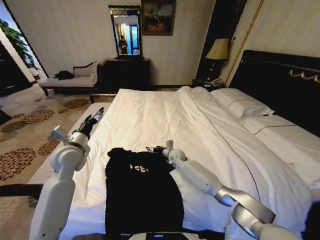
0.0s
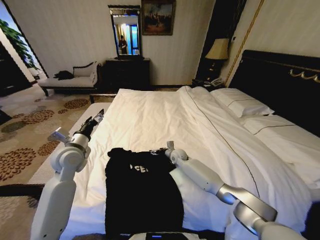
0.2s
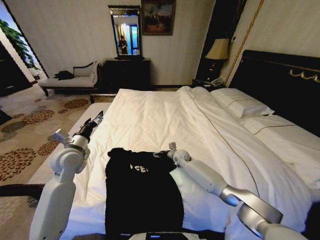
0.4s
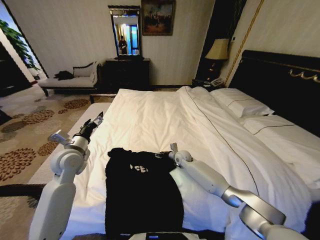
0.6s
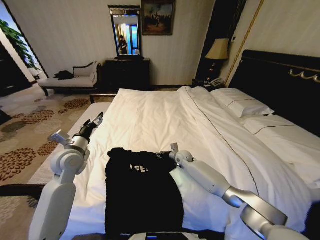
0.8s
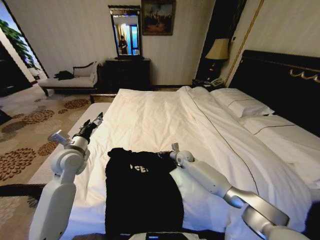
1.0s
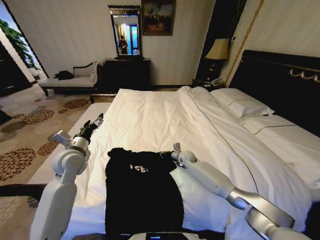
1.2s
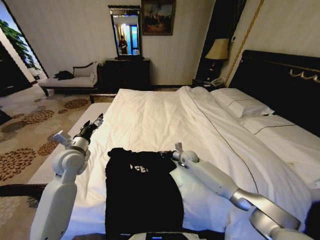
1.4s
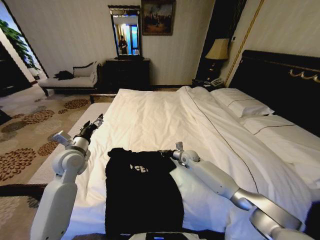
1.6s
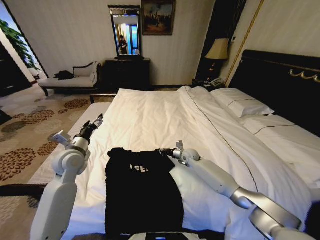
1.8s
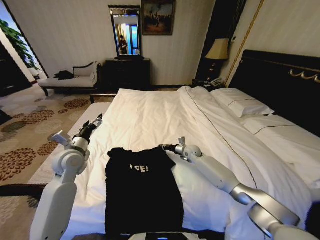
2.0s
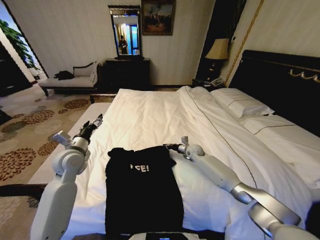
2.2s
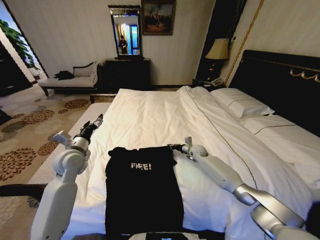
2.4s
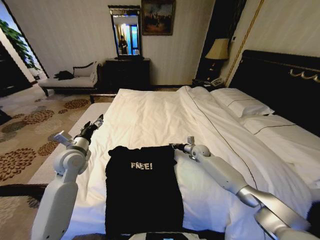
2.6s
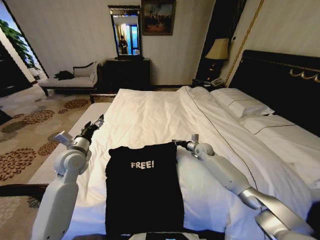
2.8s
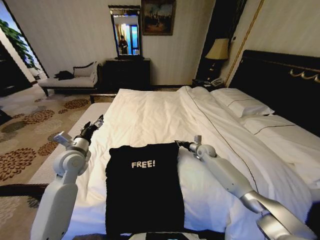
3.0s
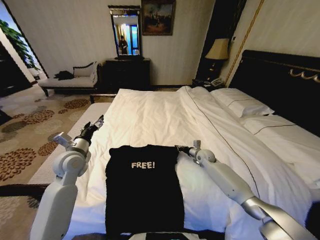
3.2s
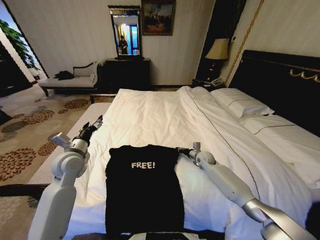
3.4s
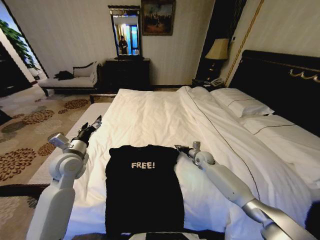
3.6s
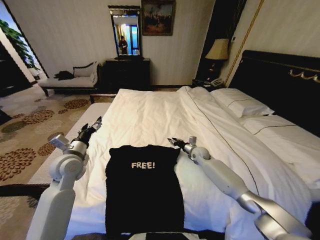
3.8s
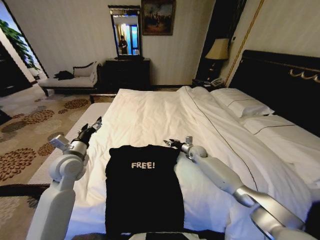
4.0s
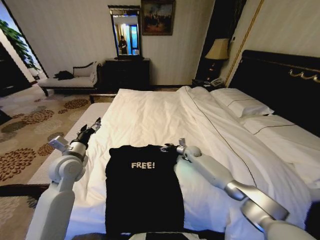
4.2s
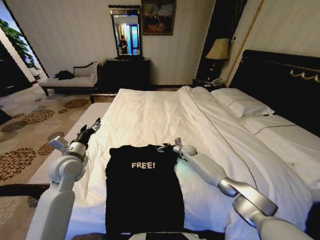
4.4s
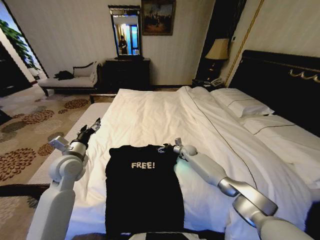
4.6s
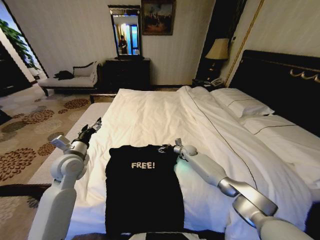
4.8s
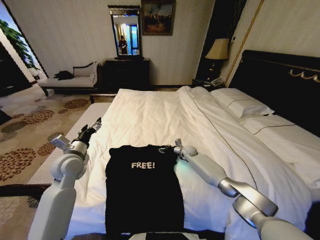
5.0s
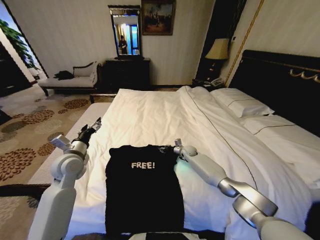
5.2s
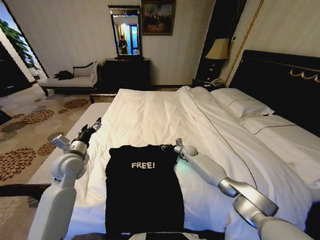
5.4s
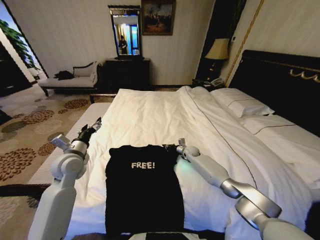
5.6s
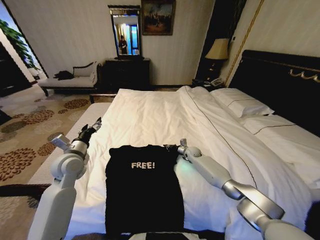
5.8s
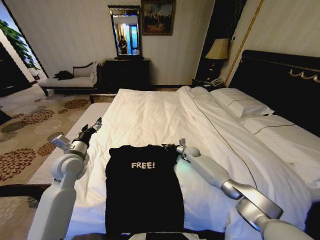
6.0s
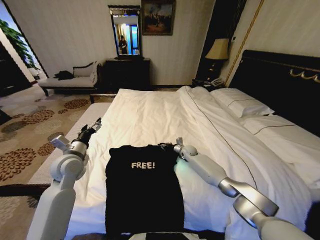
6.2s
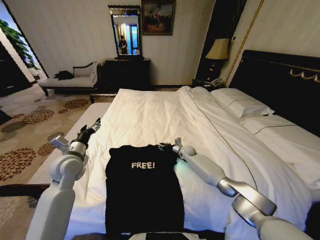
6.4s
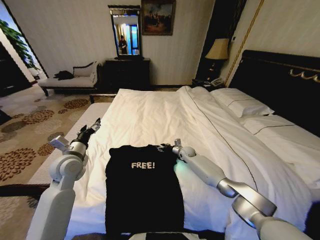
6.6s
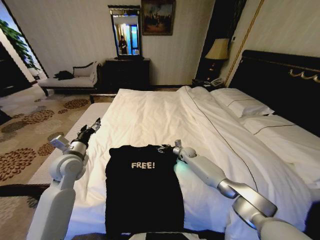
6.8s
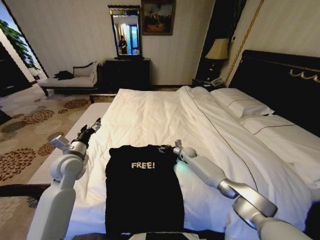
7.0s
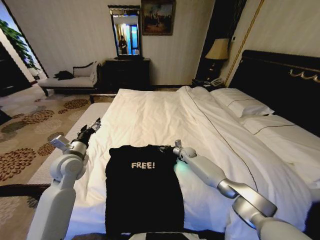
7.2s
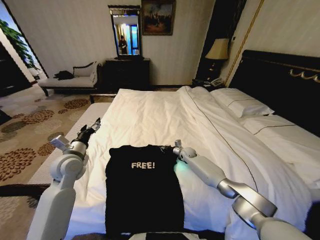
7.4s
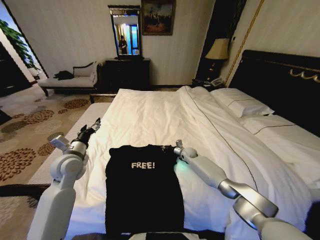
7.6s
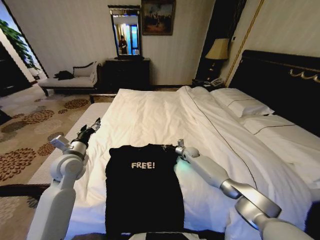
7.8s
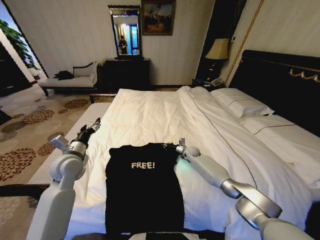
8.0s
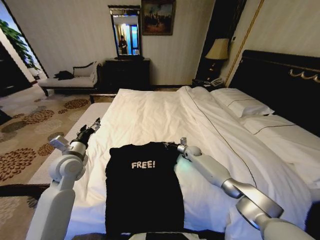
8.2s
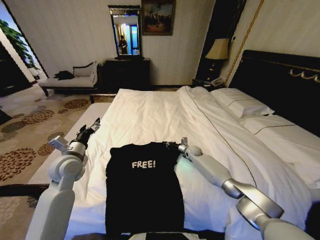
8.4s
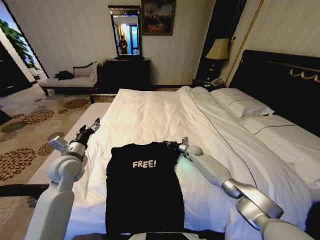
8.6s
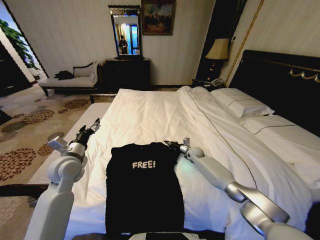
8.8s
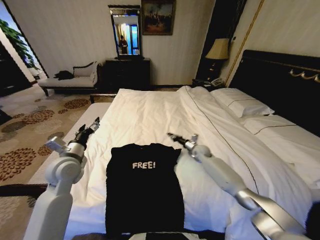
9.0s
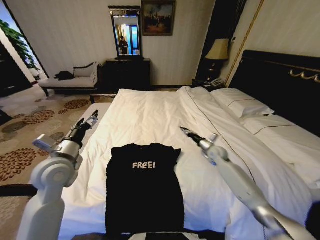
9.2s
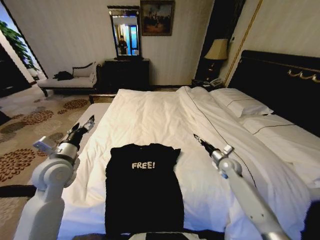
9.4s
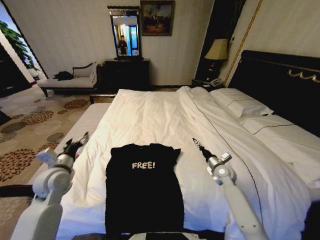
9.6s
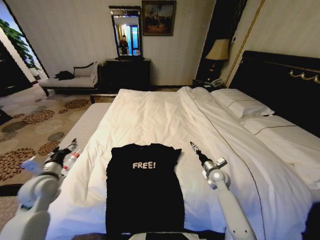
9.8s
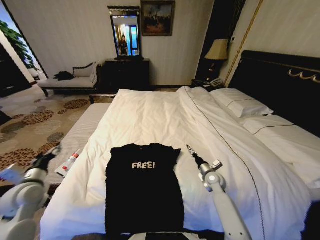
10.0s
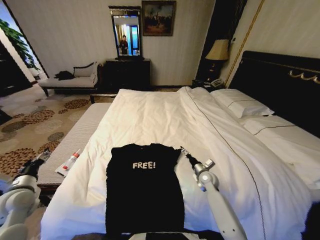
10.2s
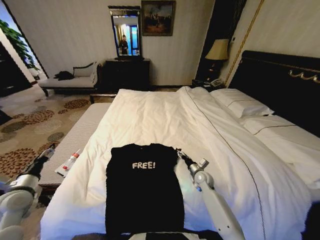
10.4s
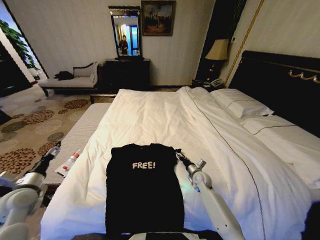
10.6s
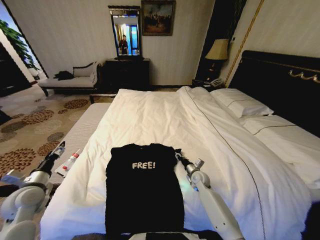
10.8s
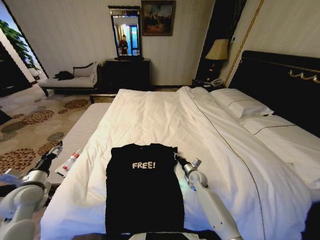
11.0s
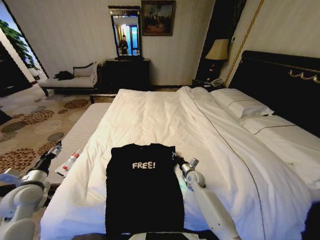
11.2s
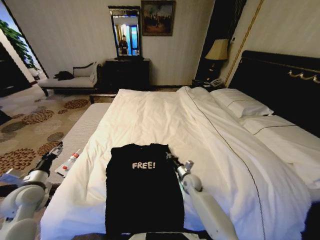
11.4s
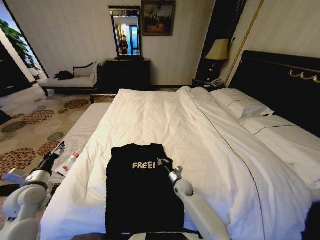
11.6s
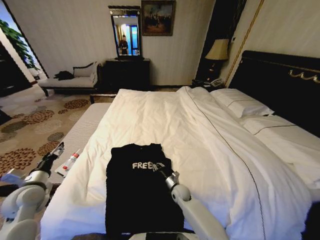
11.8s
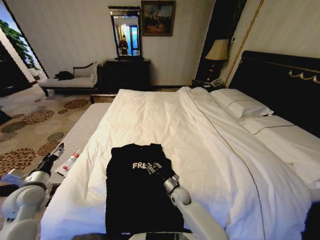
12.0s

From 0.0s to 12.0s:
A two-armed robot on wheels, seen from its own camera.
Task of the whole recording: Fold the clothes on the bed.
From 0.0s to 1.6s: The right gripper moves to the right, approximately 5 cm, and closes.
From 1.6s to 3.0s: The right gripper is displaced to the right by some 10 cm.
From 3.0s to 4.4s: The right gripper moves to the left, some 10 cm, and opens up.
From 4.4s to 6.0s: The right gripper closes its fingers.
From 6.0s to 7.6s: The right gripper opens and closes again.
From 7.6s to 9.0s: The right gripper moves upward and to the right, about 10 cm.
From 9.0s to 10.4s: The left gripper heads to the left, backward and downward, covering some 20 cm; the right gripper shifts some 15 cm backward and downward, and opens.
From 10.4s to 12.0s: The right gripper heads to the left, backward and downward, covering approximately 15 cm, and closes.

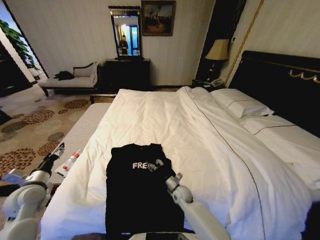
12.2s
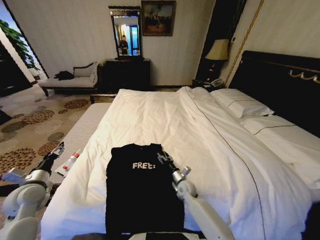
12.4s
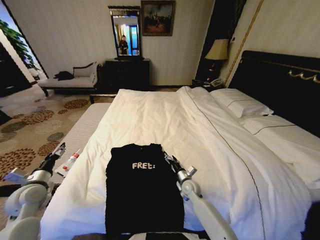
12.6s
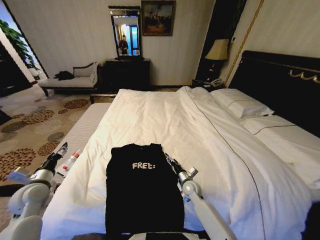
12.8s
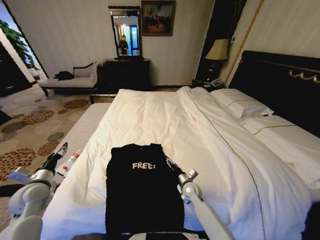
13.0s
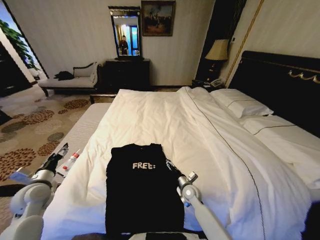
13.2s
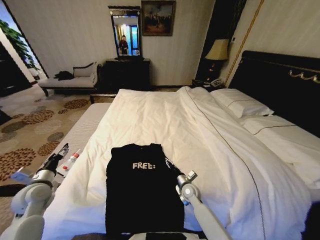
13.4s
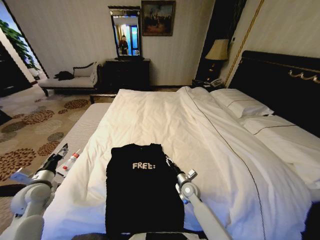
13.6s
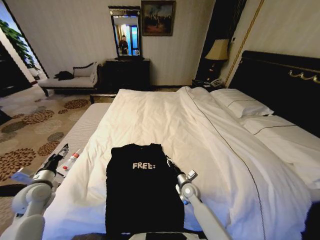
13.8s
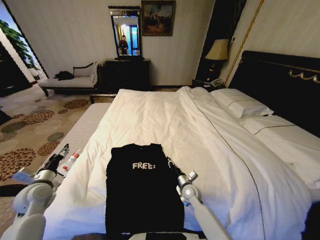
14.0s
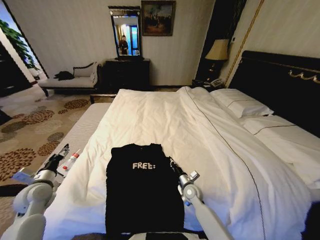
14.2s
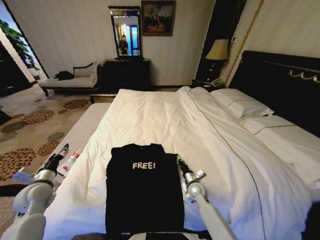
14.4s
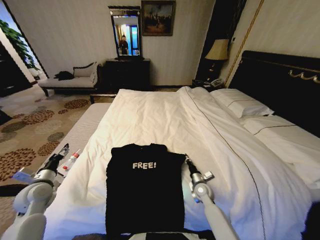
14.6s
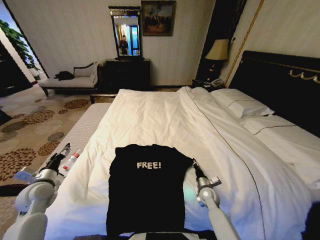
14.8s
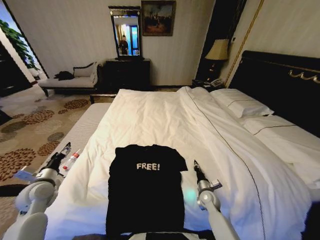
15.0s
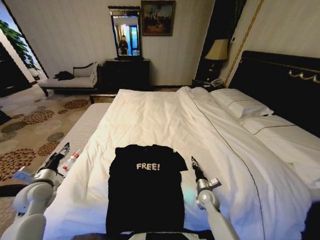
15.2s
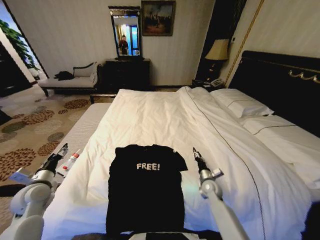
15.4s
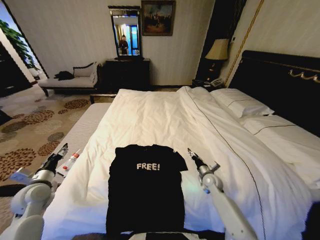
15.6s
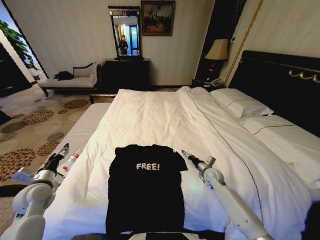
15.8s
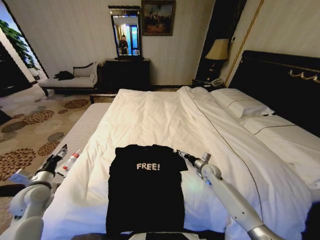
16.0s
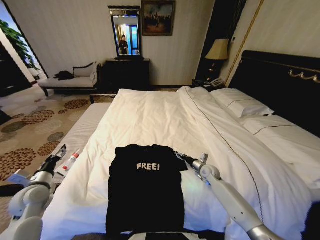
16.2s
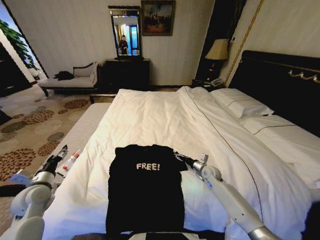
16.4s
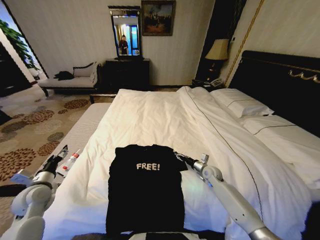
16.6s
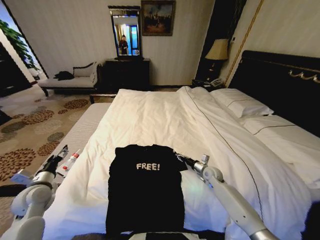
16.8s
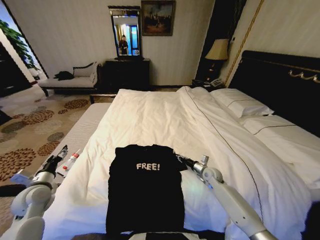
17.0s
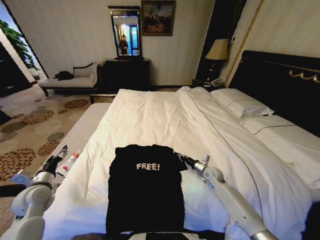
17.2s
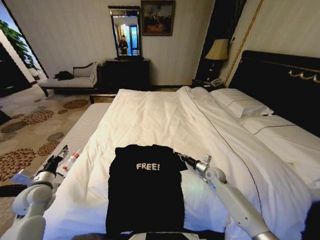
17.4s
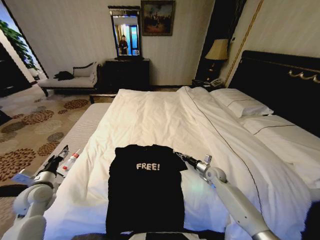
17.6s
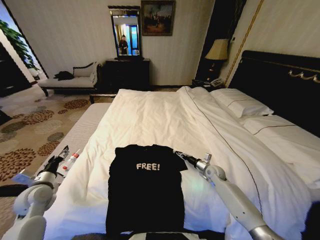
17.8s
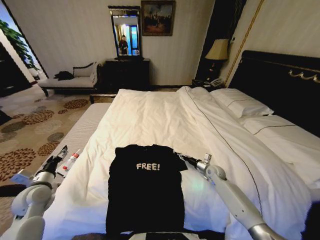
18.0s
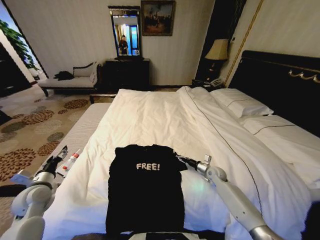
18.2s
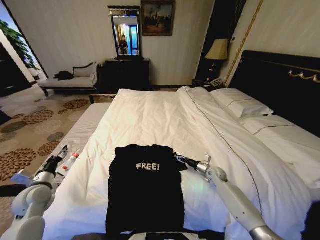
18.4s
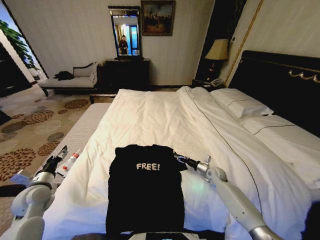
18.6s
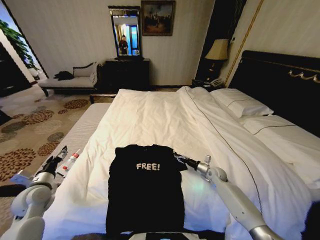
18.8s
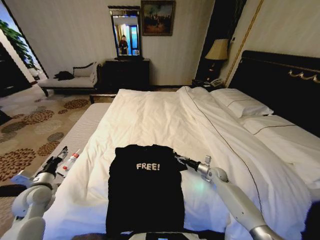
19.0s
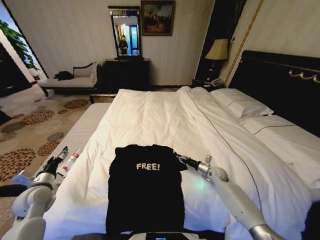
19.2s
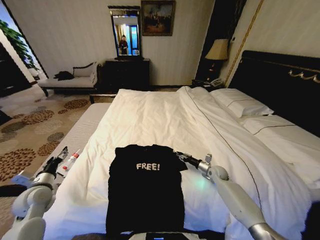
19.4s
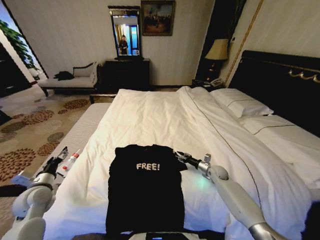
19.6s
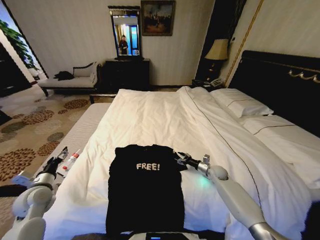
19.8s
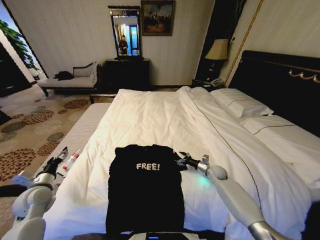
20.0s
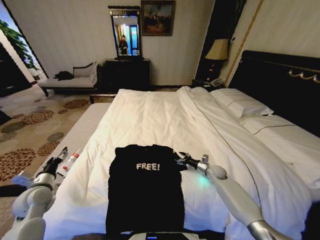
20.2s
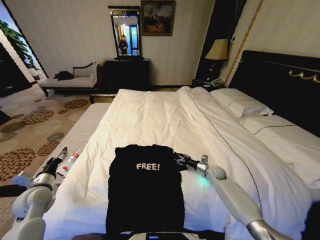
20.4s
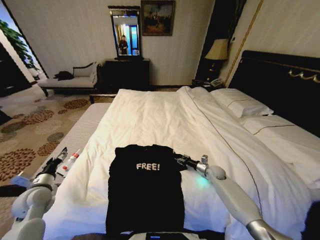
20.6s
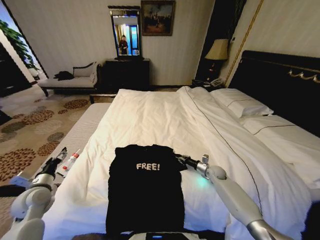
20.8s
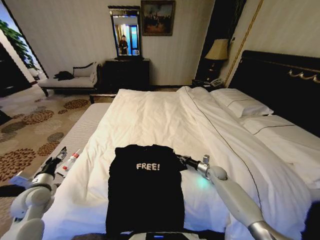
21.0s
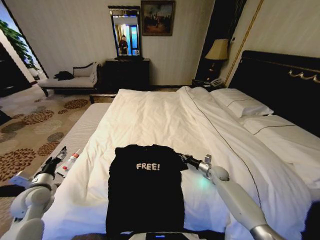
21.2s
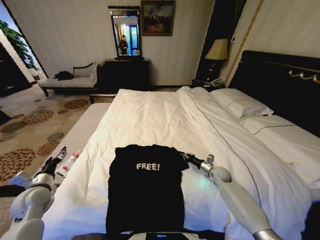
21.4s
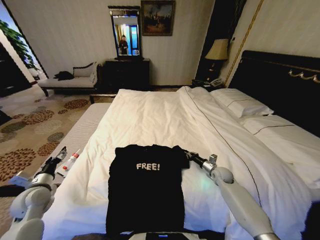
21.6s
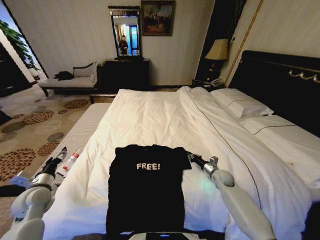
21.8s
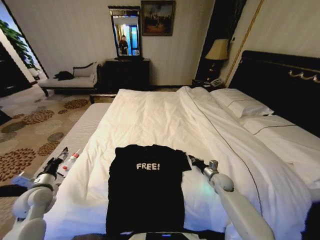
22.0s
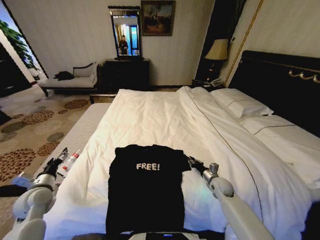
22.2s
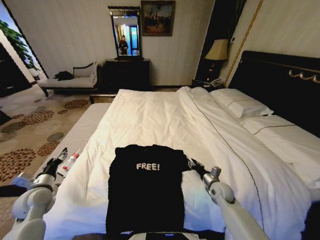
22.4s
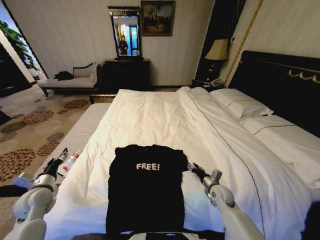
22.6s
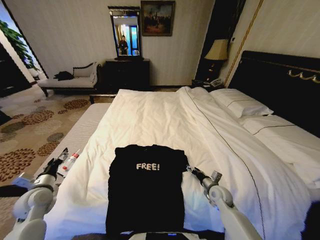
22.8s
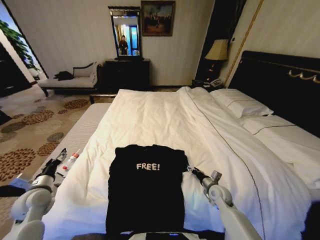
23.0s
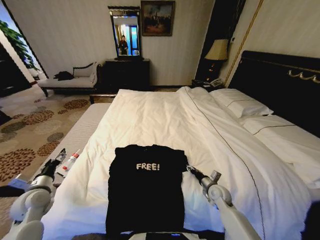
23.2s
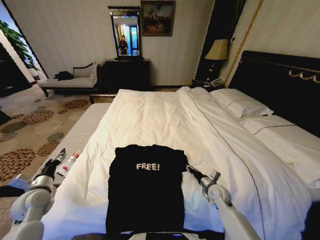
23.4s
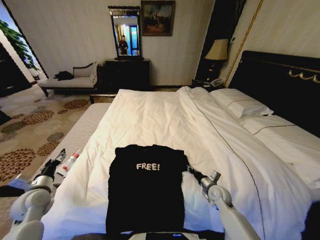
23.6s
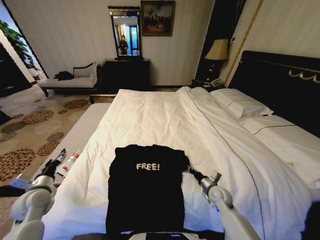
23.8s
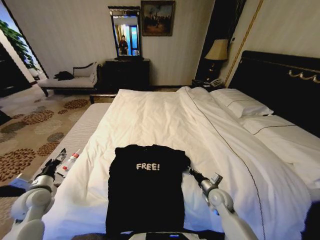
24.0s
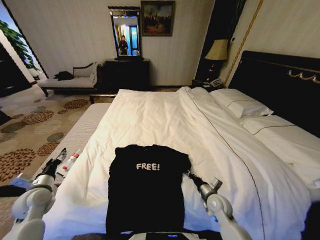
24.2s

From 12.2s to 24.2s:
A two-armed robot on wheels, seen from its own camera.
Task of the whole recording: Fold the clothes on the bed.
From 12.2s to 13.8s: The right gripper changes place by about 5 cm, and opens and closes again.
From 13.8s to 15.2s: The right gripper travels to the right by about 10 cm.
From 15.2s to 16.6s: The right gripper goes about 10 cm forward, and opens.
From 16.6s to 18.2s: The right gripper closes, then opens again.
From 18.2s to 19.8s: The right gripper closes and opens again.
From 19.8s to 21.2s: The right gripper closes.
From 21.2s to 22.6s: The right gripper is displaced backward by about 10 cm, and opens.
From 22.6s to 24.2s: The right gripper moves about 5 cm, and closes its fingers.
